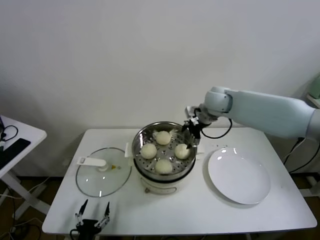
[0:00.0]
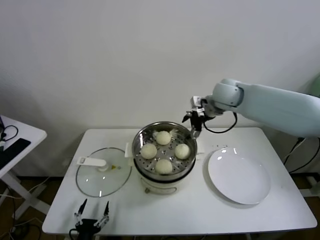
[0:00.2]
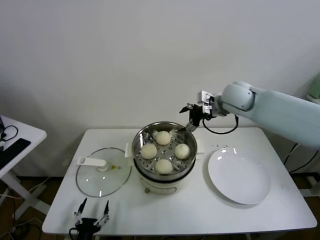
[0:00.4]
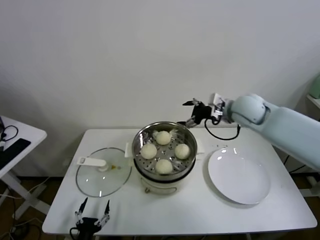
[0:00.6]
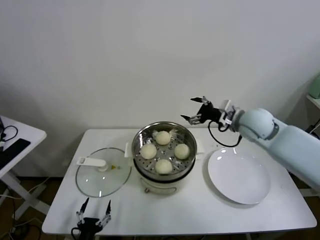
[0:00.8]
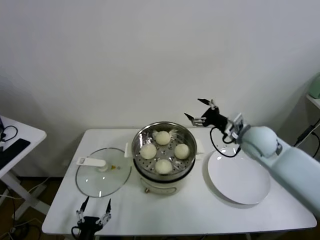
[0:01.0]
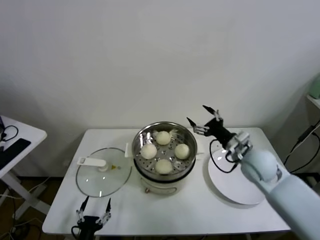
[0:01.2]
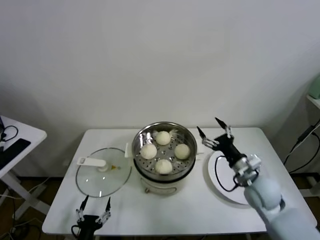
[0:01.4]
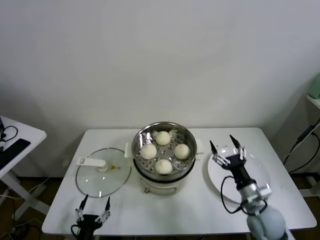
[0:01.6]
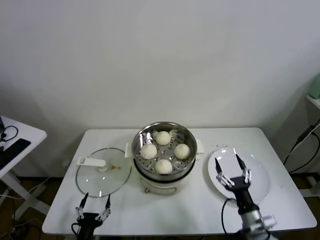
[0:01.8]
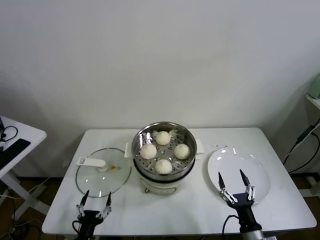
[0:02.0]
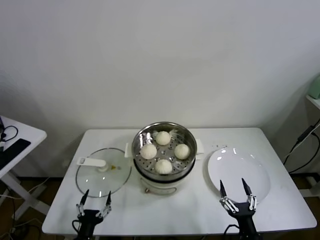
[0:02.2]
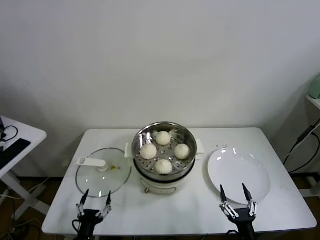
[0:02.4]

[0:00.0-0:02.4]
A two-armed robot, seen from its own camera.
Task of the whole recording: take steamed baozi put them in steamer.
0:00.0 to 0:01.2: The right gripper shifts roughly 20 cm backward, to the right and downward.
0:01.2 to 0:02.4: The right gripper travels backward and downward by roughly 35 cm.

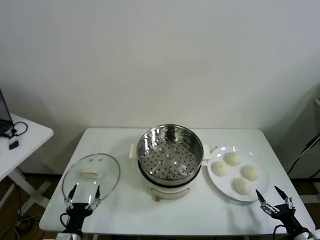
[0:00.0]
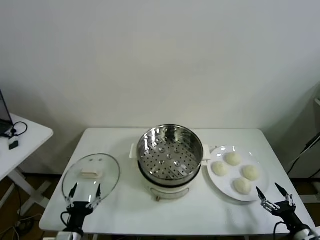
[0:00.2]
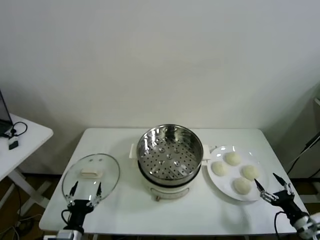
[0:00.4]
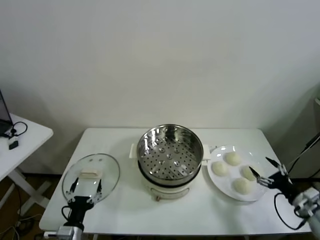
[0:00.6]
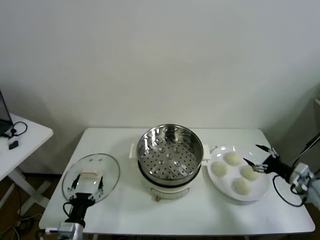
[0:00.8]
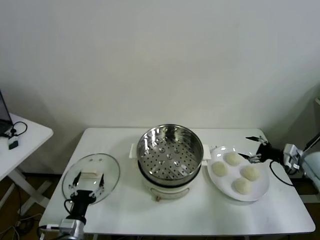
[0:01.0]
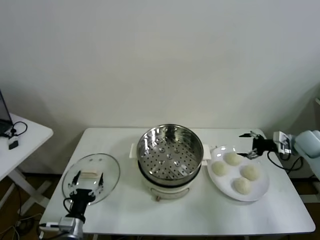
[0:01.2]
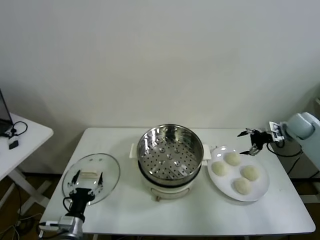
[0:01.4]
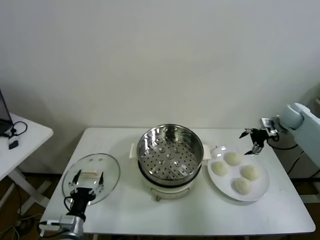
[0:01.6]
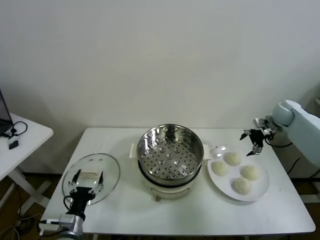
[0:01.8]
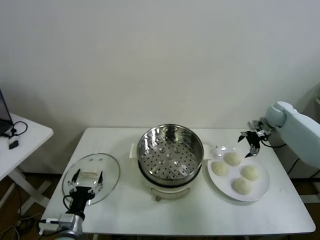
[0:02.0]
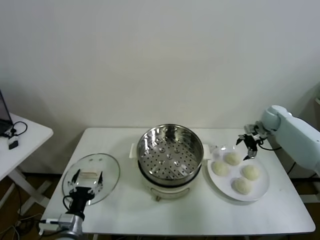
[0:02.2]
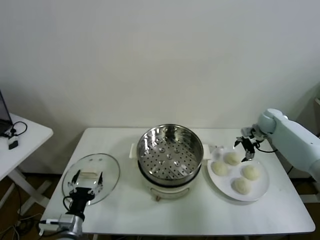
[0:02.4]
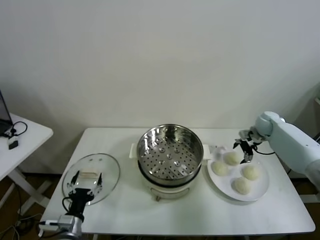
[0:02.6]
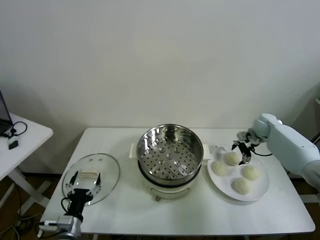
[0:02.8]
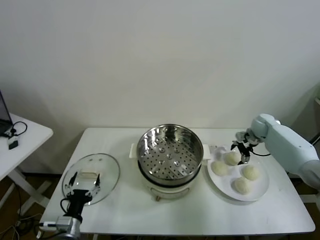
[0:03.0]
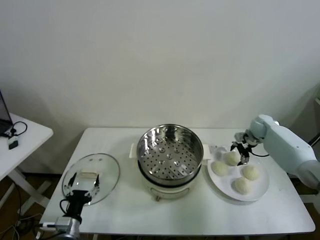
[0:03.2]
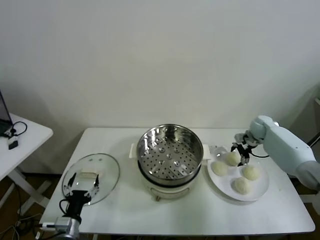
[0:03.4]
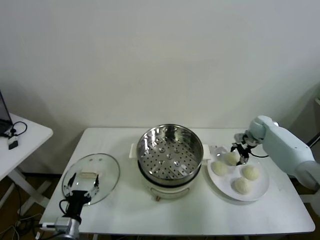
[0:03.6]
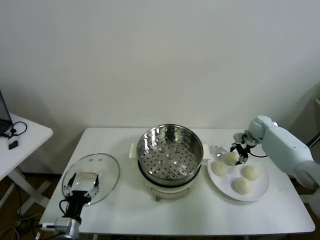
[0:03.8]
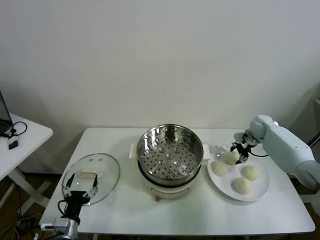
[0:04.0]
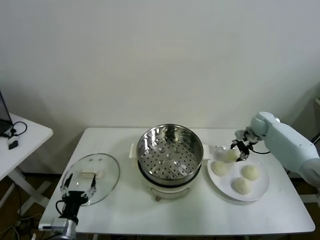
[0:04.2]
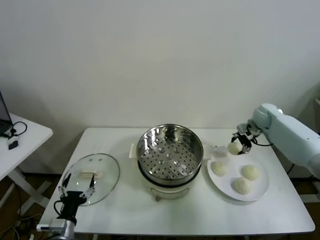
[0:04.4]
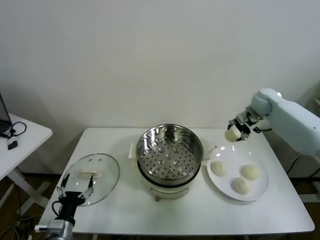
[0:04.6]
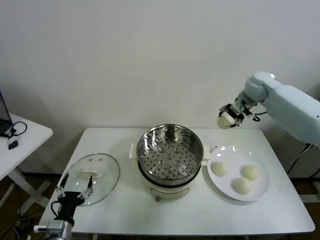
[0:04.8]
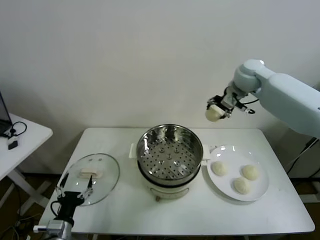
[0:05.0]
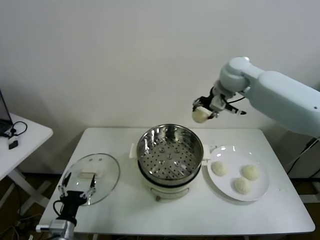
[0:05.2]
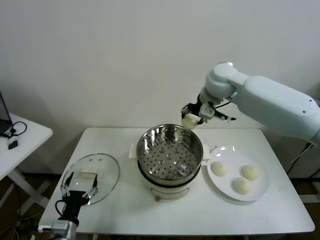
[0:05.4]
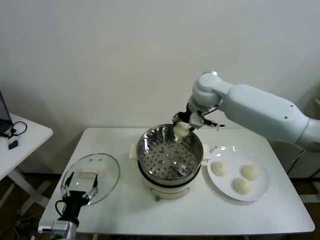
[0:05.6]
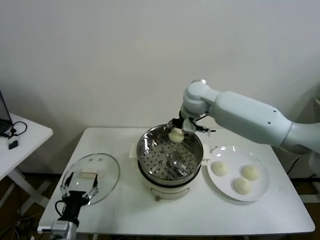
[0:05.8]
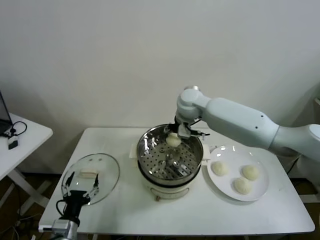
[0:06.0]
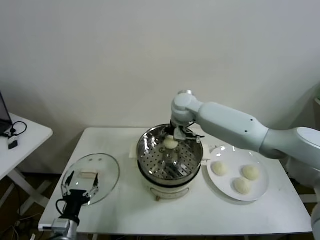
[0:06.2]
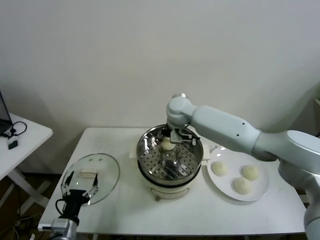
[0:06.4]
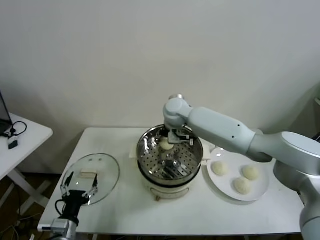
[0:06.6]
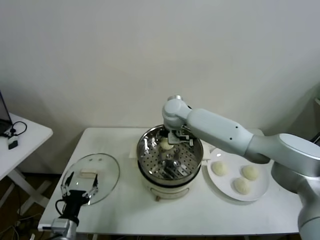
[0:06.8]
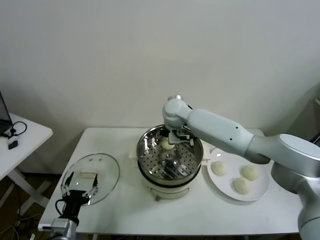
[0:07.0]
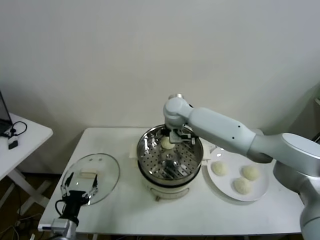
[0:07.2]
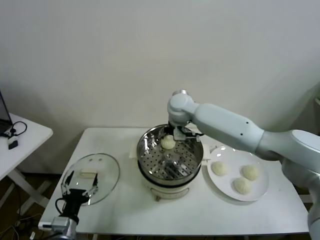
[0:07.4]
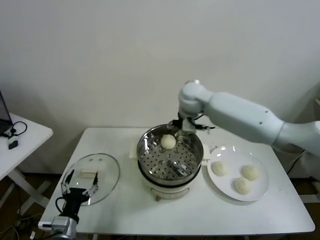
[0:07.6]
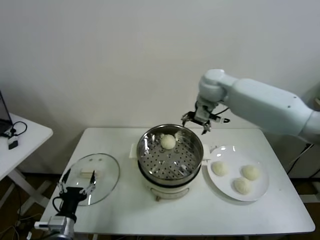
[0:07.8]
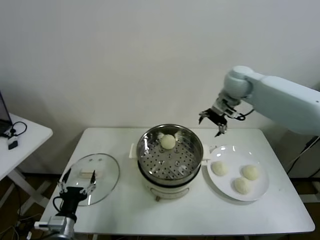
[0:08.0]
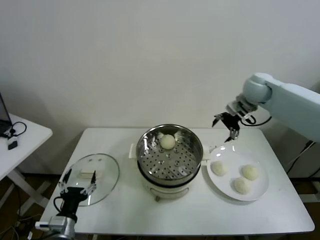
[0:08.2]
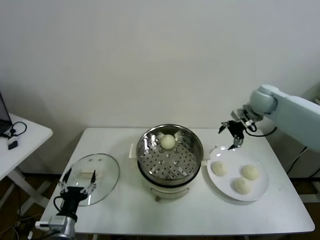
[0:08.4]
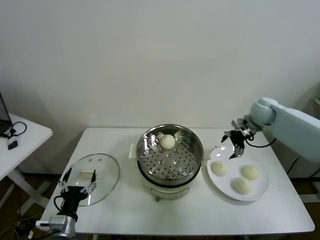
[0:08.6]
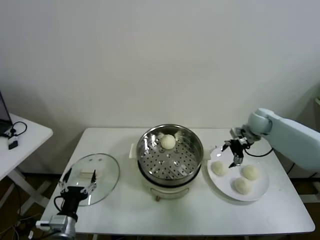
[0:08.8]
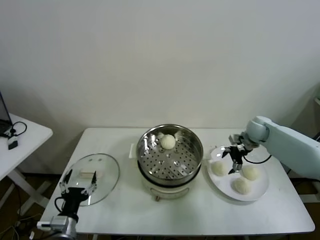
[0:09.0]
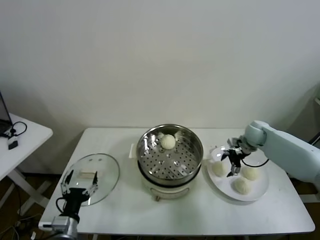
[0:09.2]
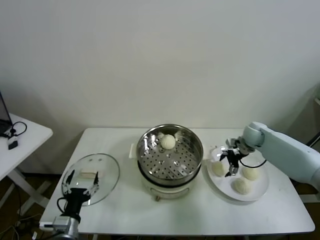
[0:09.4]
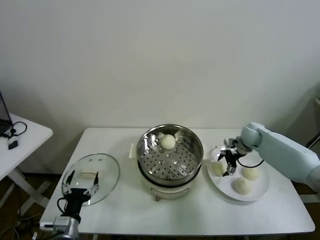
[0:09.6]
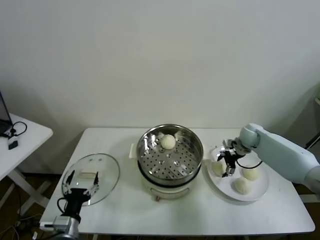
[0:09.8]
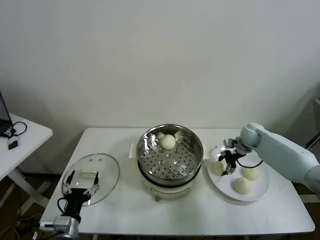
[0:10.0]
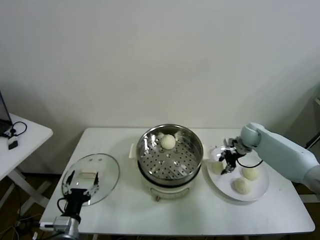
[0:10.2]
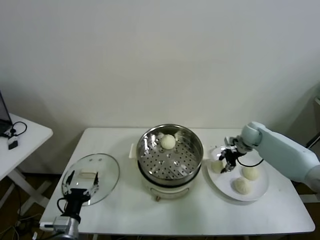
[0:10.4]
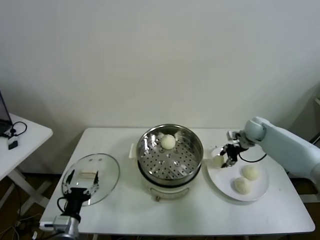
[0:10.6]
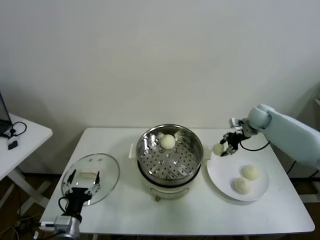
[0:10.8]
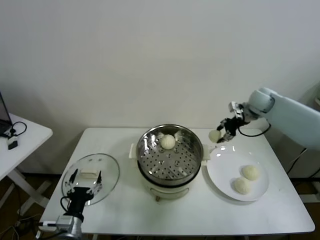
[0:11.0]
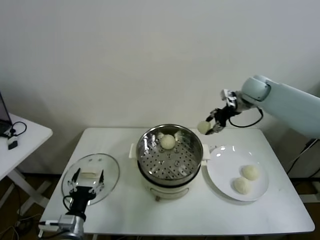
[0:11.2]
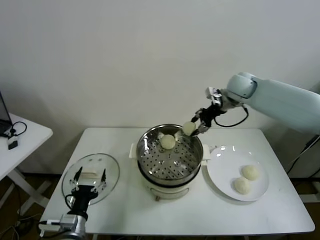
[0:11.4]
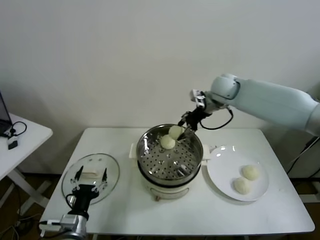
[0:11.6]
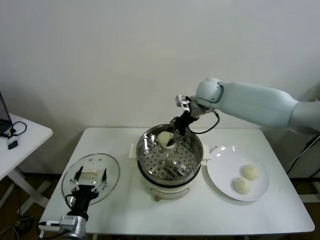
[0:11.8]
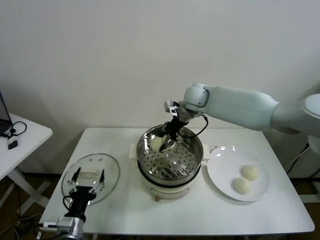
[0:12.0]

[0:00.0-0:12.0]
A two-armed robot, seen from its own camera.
Task of the whole recording: take steamed baozi put them in steamer.
Step, 0:00.0 to 0:03.8: Grasp the baozi in the plate with right gripper.
Step, 0:04.0 to 0:07.0: Place the baozi on the steamer with right gripper.
Step, 0:07.4 to 0:10.0: Grasp the baozi in the plate with right gripper.
0:01.6 to 0:03.0: The right gripper moves downward and to the left, some 10 cm.
0:03.0 to 0:04.4: The right gripper shifts roughly 10 cm upward, and closes.
0:04.4 to 0:06.0: The right gripper heads to the left, covering roughly 30 cm.
0:06.0 to 0:07.6: The right gripper moves some 5 cm, and opens up.
0:07.6 to 0:09.0: The right gripper goes about 30 cm to the right and downward.
0:09.0 to 0:10.4: The right gripper closes.
0:10.4 to 0:12.0: The right gripper shifts roughly 30 cm to the left and upward.

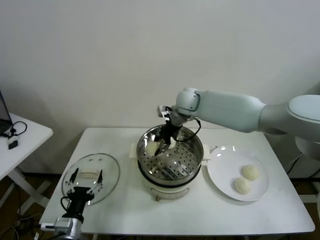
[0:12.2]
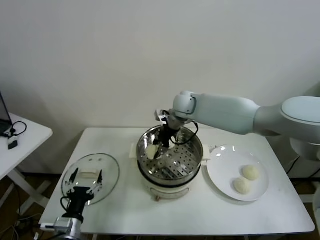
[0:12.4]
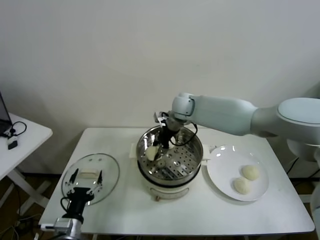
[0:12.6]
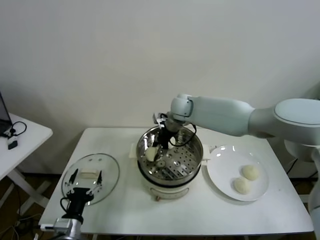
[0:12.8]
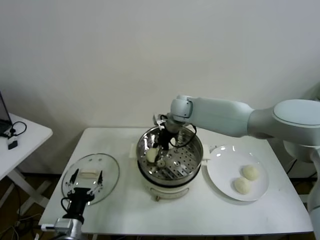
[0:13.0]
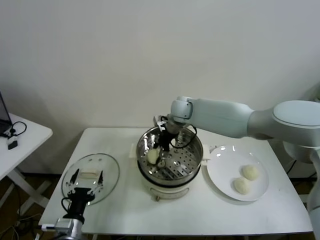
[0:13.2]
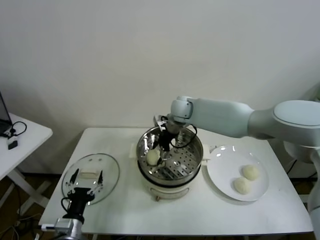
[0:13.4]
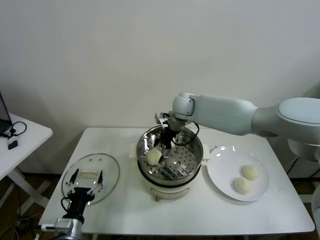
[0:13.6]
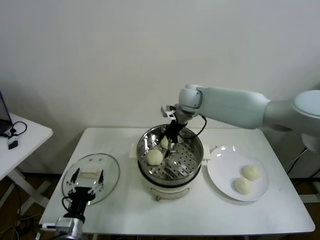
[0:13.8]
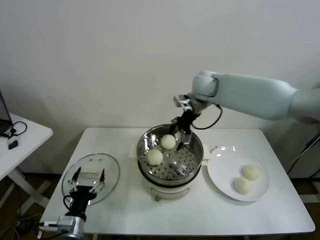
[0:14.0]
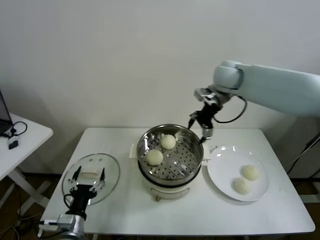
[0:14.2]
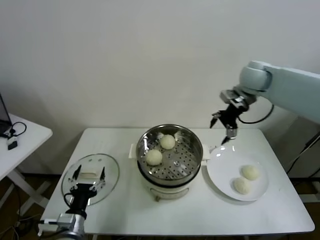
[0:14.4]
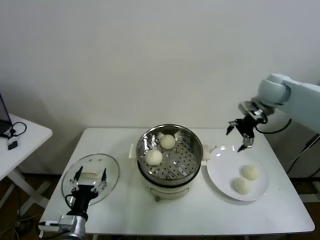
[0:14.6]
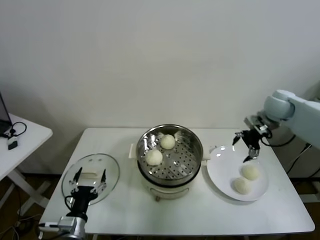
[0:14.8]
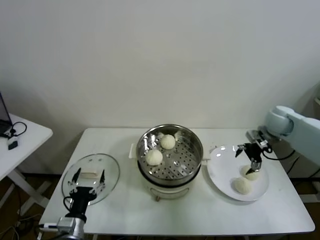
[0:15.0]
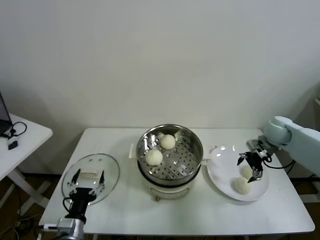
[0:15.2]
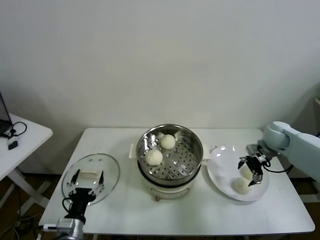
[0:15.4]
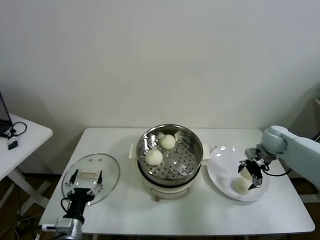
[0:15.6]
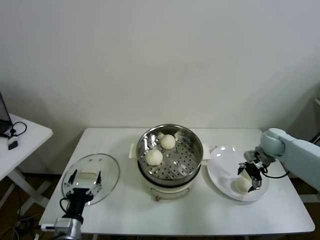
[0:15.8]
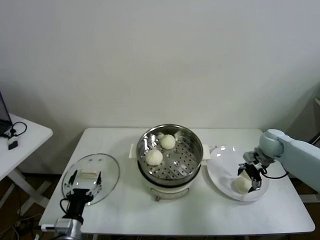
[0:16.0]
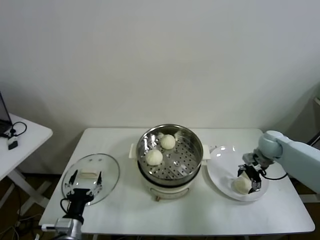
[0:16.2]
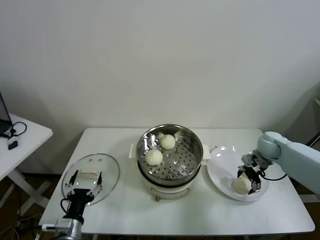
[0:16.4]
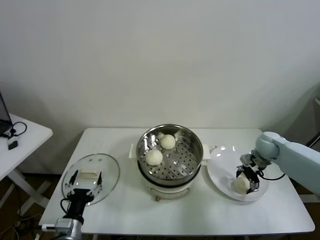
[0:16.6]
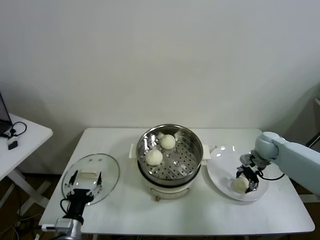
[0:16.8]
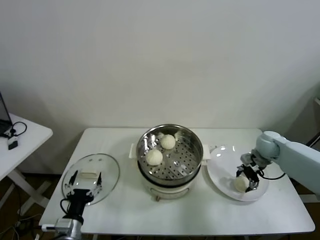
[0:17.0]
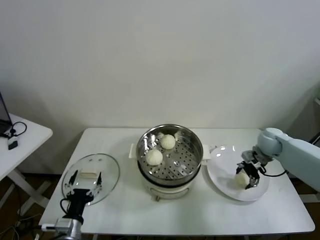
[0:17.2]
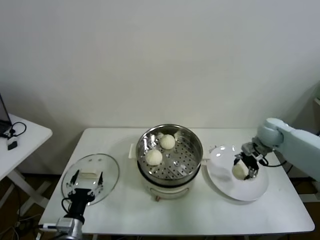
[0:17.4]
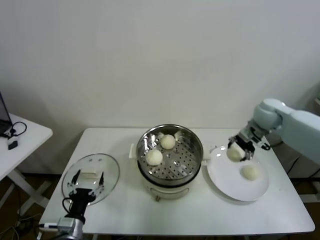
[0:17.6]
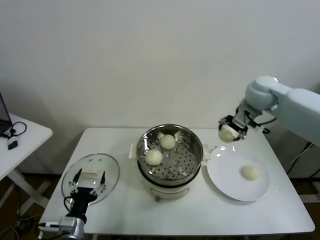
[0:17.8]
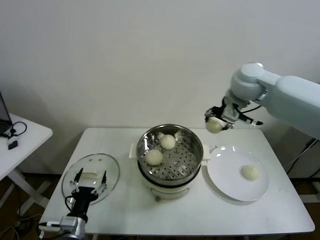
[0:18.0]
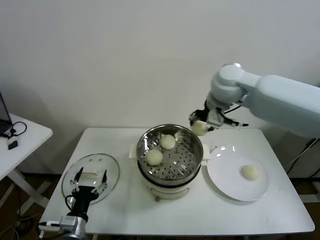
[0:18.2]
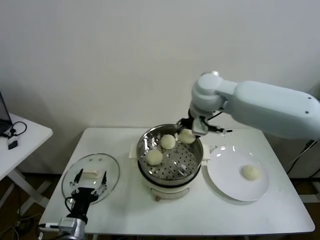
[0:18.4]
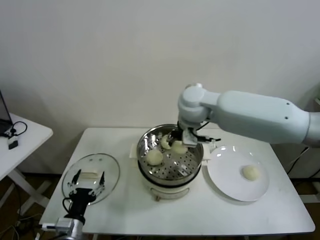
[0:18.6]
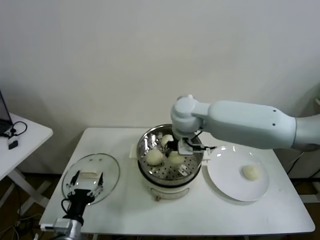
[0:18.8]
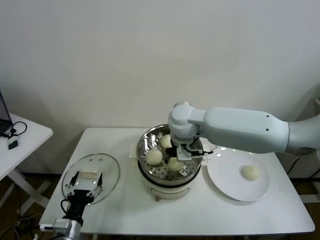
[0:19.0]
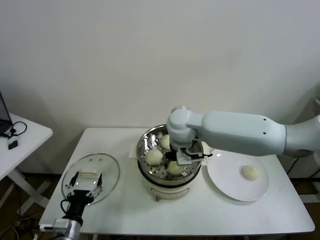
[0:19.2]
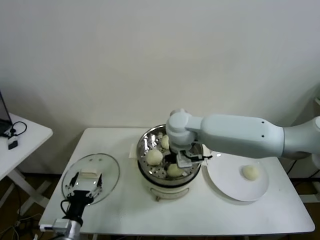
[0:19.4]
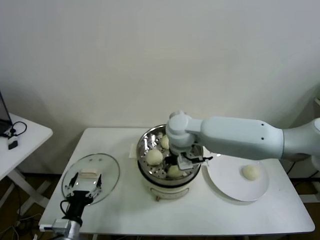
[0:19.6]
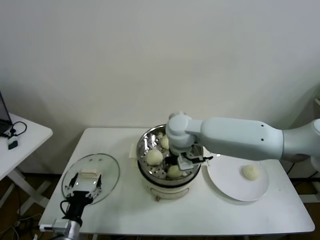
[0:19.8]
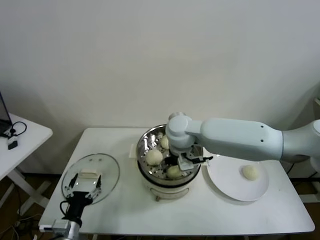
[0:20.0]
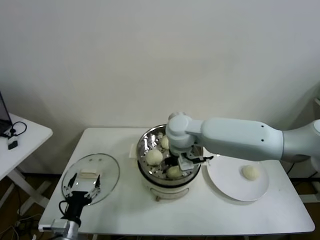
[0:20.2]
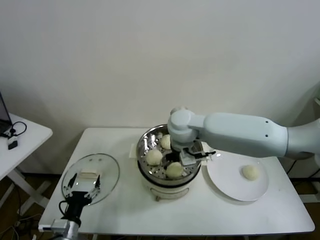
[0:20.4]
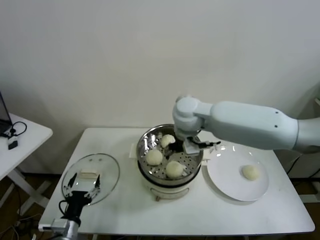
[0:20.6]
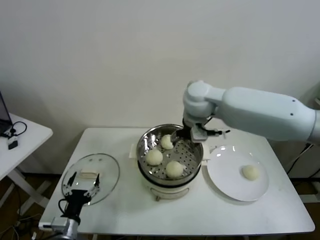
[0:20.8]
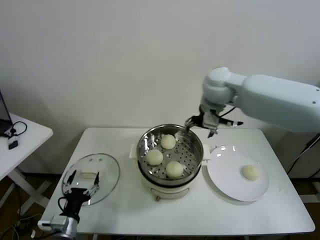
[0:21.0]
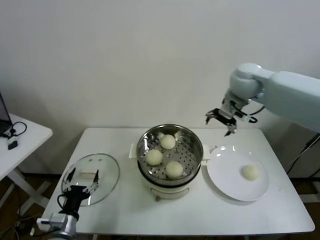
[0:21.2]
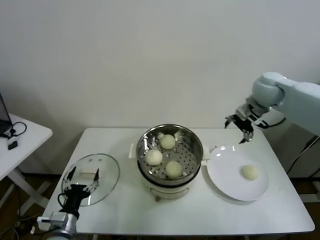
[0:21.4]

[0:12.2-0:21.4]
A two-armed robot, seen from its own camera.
Task of the whole recording: take steamed baozi put them in steamer.
Step, 0:13.6 to 0:16.8: Grasp the baozi in the plate with right gripper.
Step, 0:17.0 to 0:20.0: Place the baozi on the steamer with right gripper.
0:12.2 to 0:13.8: The right gripper opens up.
0:13.8 to 0:15.2: The right gripper is displaced to the right by about 30 cm.
0:15.2 to 0:16.8: The right gripper travels downward by roughly 5 cm, and closes its fingers.
0:16.8 to 0:18.4: The right gripper heads to the left and upward, covering roughly 40 cm.
0:18.4 to 0:19.8: The right gripper is displaced downward and to the left by about 15 cm.
0:19.8 to 0:21.4: The right gripper moves to the right, roughly 25 cm, and opens.
